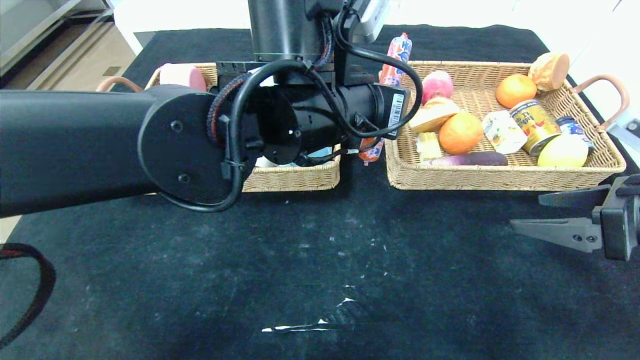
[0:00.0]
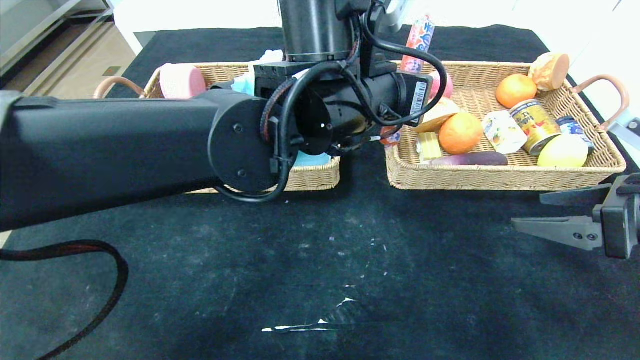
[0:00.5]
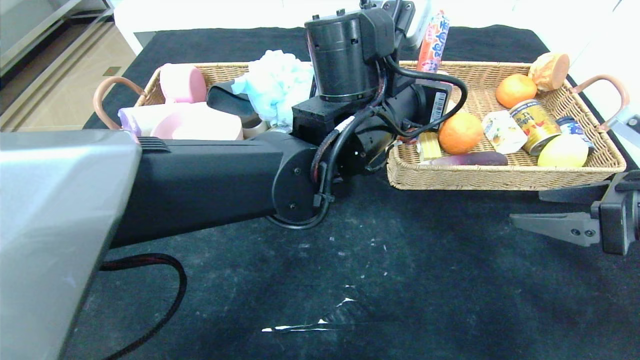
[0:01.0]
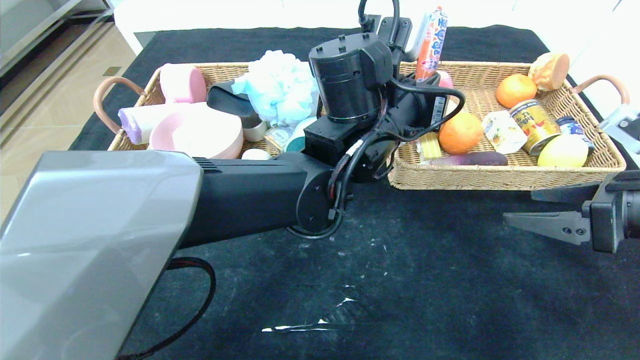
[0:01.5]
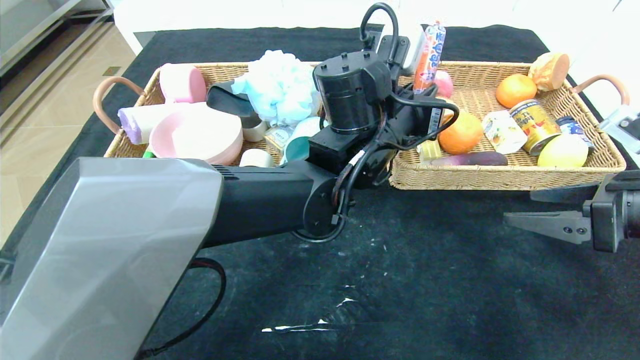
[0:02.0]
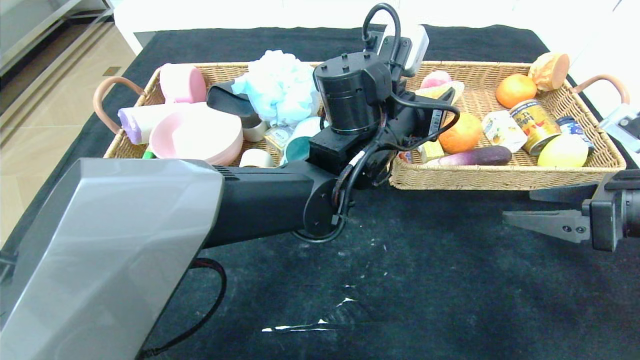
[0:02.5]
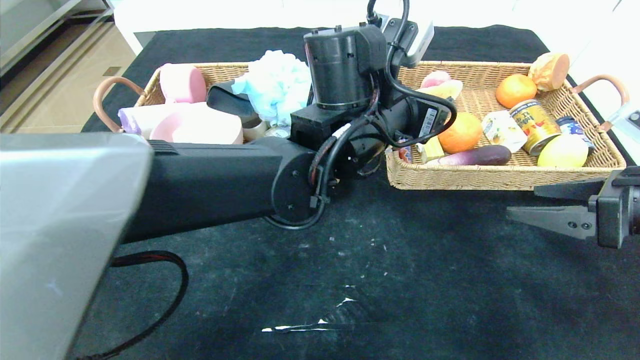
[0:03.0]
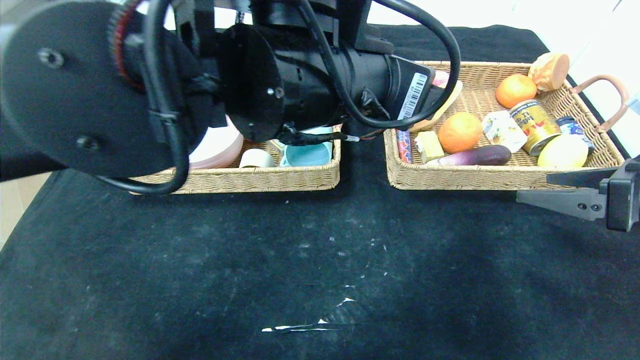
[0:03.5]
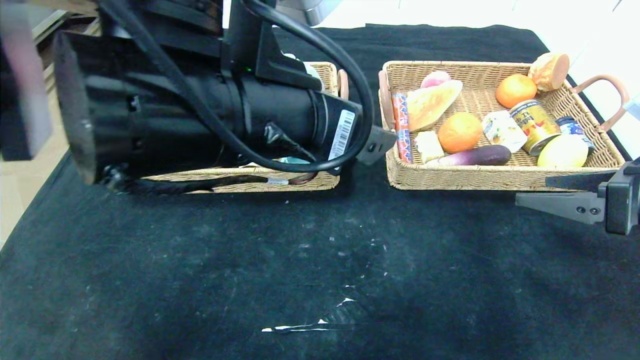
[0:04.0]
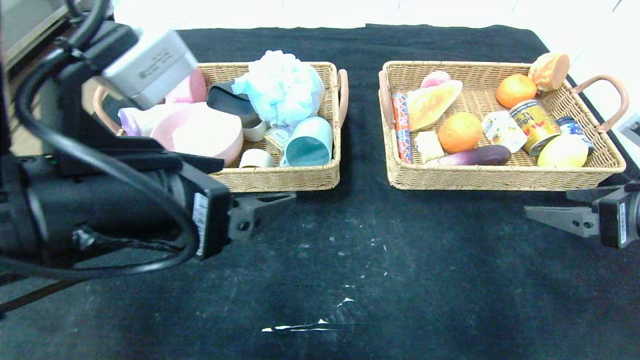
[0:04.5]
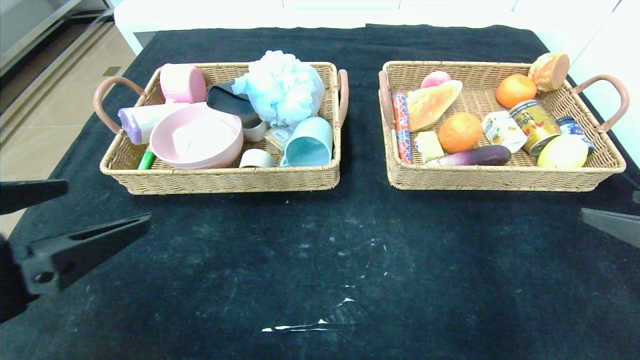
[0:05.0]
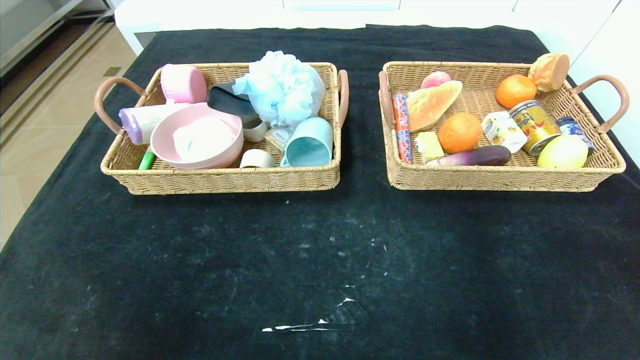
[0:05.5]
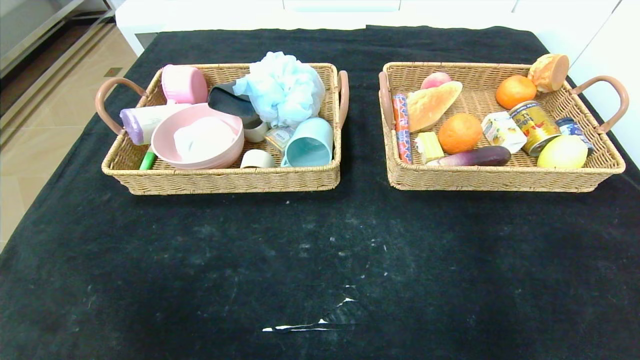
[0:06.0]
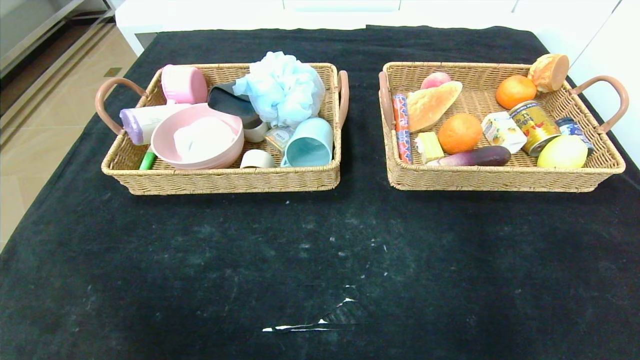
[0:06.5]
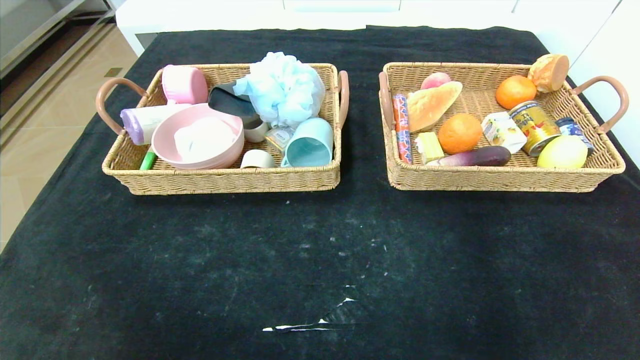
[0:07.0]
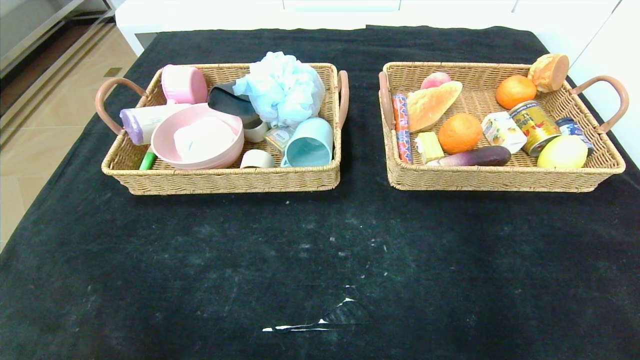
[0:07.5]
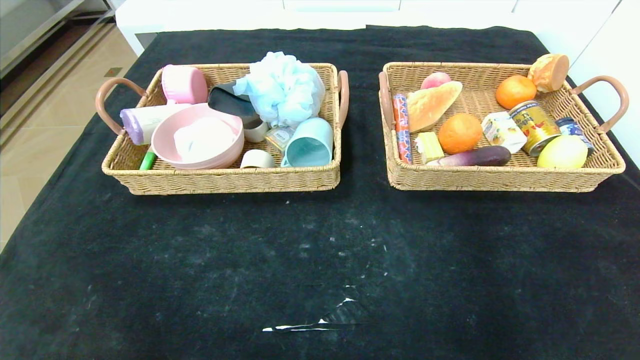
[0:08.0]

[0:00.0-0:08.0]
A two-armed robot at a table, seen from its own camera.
Step, 0:00.0 to 0:02.5: Grasp the sausage and put it in the right basket.
0:00.0 to 0:02.0: The left gripper shifts some 10 cm to the right and forward.
0:02.0 to 0:04.0: The left gripper heads backward, to the left and upward, covering some 20 cm, and opens up.
0:04.0 to 0:06.0: The right gripper travels backward by approximately 25 cm, while the left gripper is displaced backward and to the left by roughly 35 cm.
